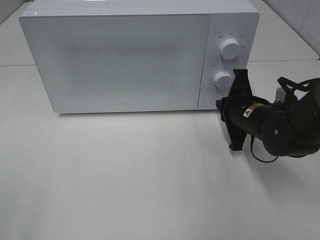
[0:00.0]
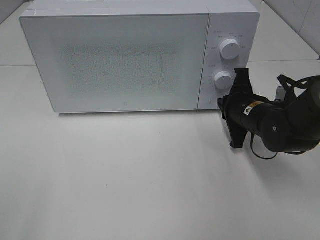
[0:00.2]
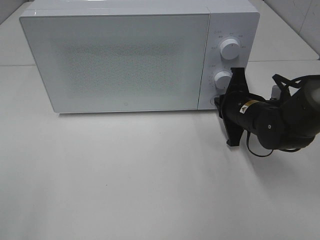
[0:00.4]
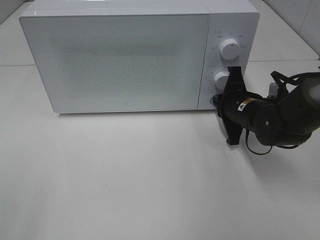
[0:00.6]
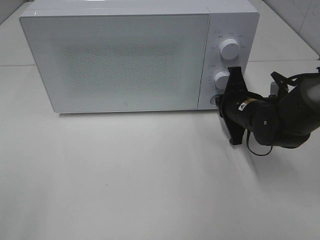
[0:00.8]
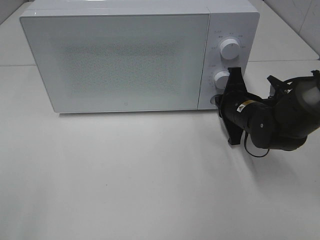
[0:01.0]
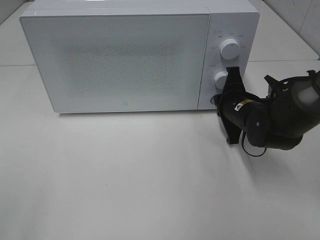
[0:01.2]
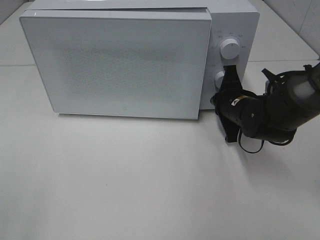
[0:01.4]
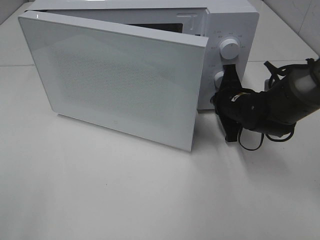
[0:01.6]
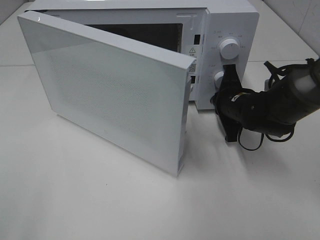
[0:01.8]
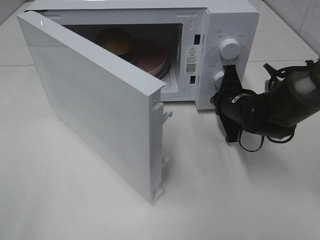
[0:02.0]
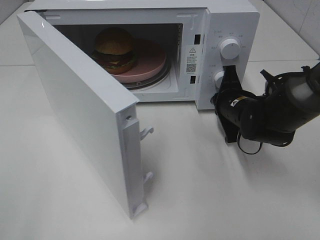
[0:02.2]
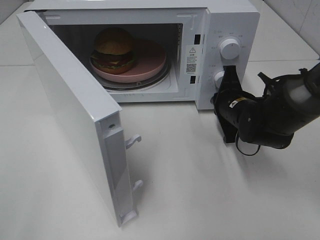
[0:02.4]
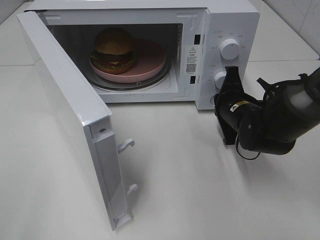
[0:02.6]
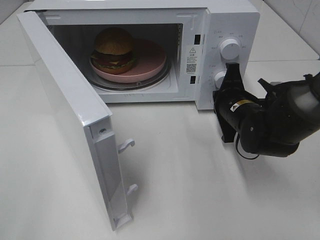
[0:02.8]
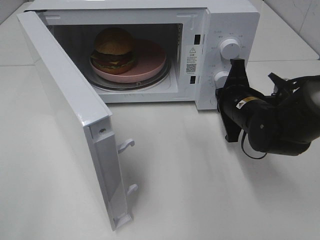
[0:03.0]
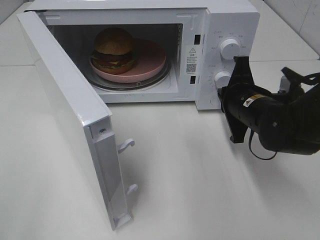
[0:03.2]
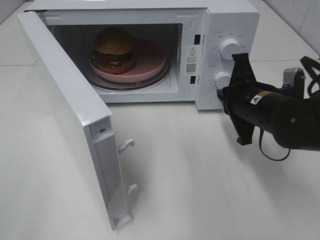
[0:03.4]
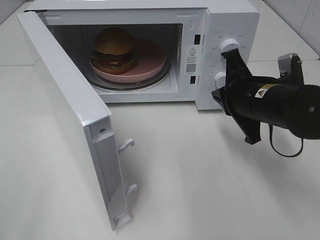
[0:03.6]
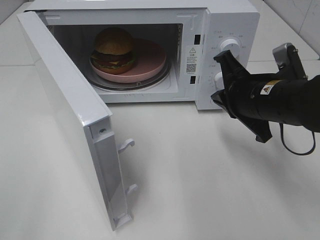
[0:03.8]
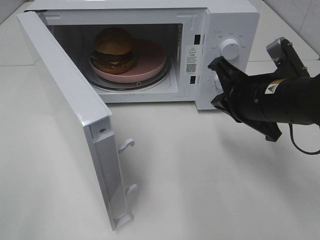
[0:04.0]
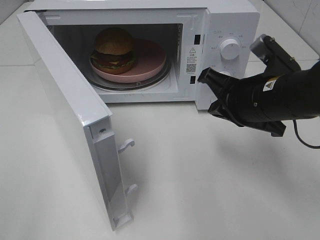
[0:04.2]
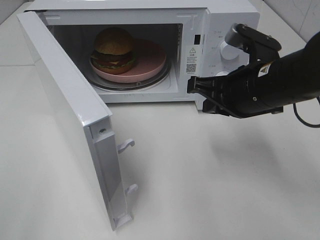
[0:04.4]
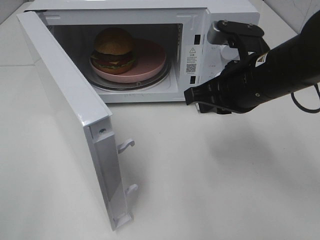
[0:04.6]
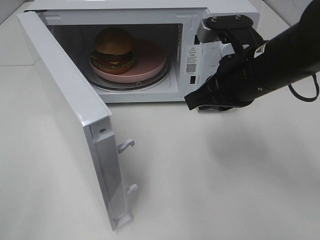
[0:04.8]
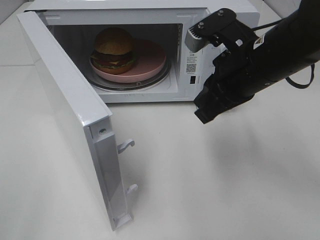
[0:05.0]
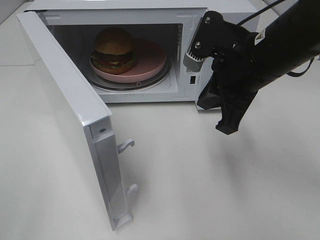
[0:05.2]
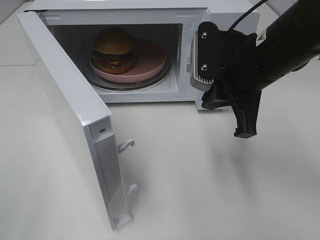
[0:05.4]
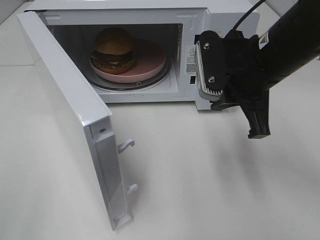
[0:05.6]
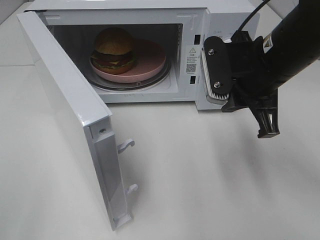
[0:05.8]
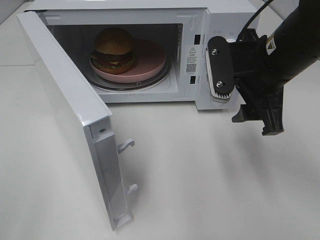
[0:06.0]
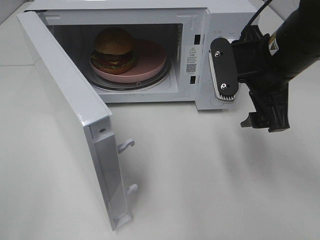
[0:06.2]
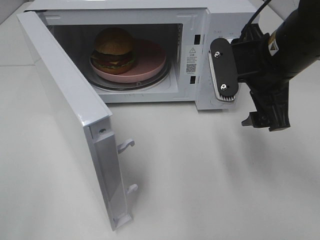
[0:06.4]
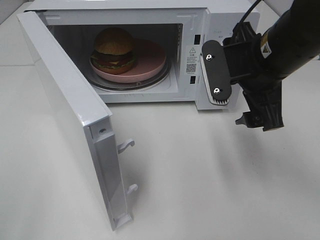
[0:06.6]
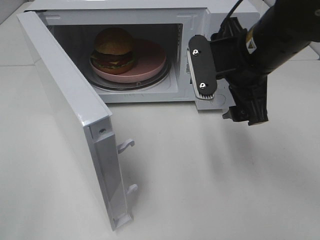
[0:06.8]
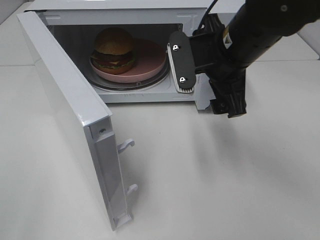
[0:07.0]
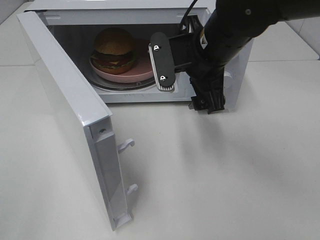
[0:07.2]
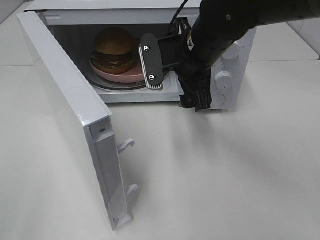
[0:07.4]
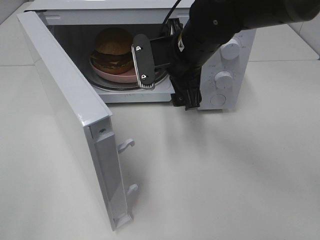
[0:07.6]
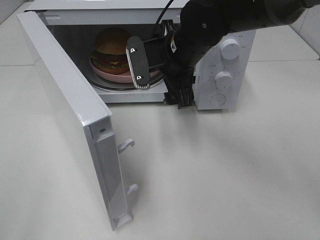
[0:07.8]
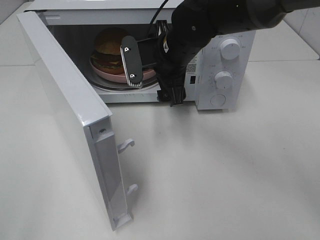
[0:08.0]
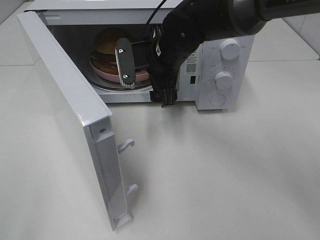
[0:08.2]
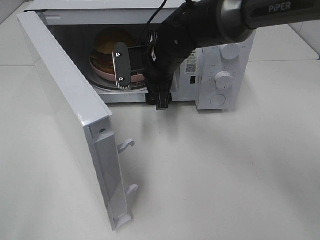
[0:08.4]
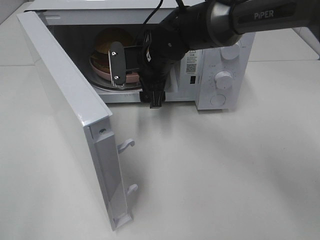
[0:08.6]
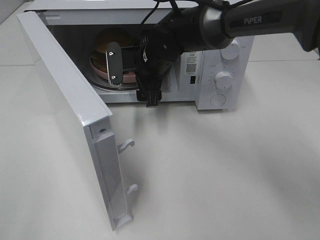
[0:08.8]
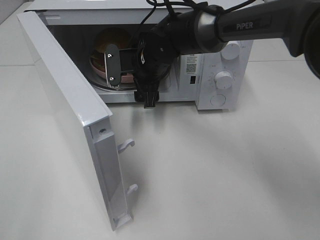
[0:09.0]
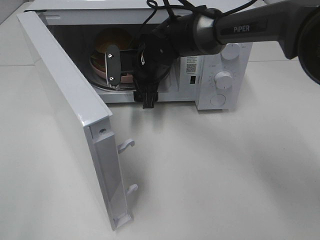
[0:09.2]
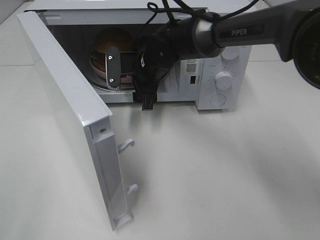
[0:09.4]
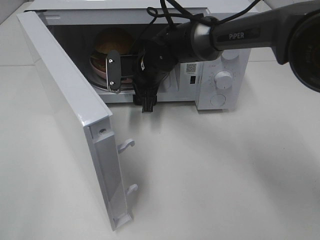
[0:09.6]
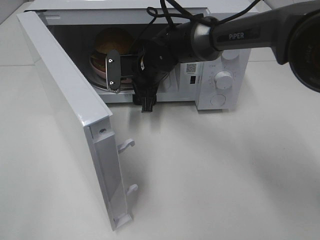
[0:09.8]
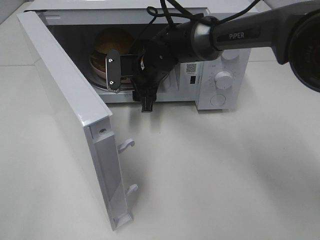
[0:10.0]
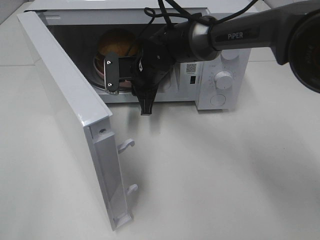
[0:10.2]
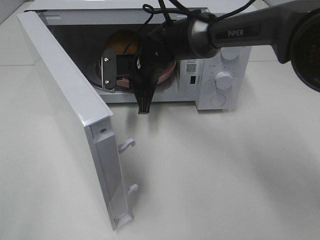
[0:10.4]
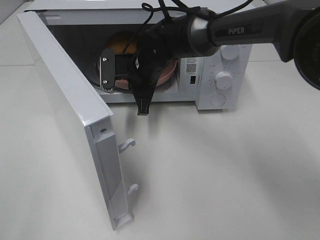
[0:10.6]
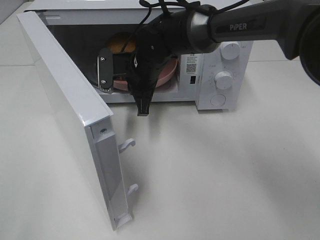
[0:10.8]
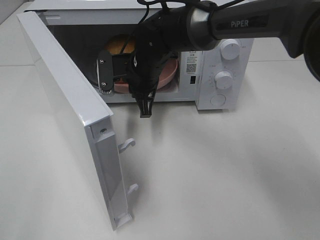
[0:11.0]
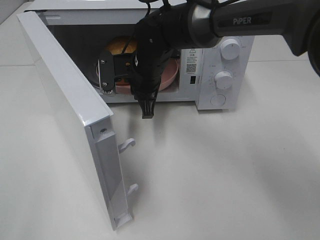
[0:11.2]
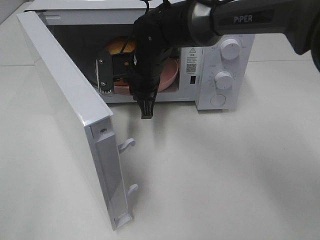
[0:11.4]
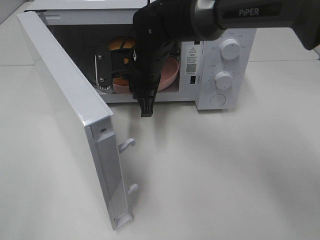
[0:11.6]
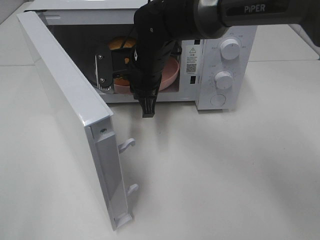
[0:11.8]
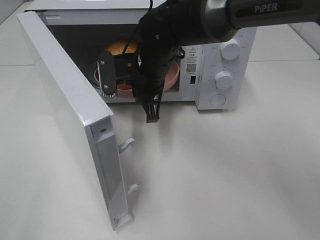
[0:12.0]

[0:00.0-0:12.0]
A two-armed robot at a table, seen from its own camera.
Task of the whole recording: Heat the burger.
Step, 0:00.0 to 0:02.8: Right hand: press the switch.
Step, 0:03.0 to 0:10.4: Right hand: grab the plate with the hamburger.
0:00.0 to 0:01.6: The grippers move only a little.
0:01.6 to 0:03.0: The right gripper shifts by some 5 cm.
0:03.0 to 0:04.4: The right gripper moves upward and backward, roughly 10 cm.
0:04.4 to 0:06.0: The right gripper opens its fingers.
0:06.0 to 0:07.6: The right gripper shifts approximately 10 cm to the left and forward.
0:07.6 to 0:09.0: The right gripper moves forward, downward and to the left, approximately 10 cm.
0:09.0 to 0:10.4: The right gripper closes up.
0:10.4 to 0:12.0: The right gripper ends up some 5 cm from where it was.

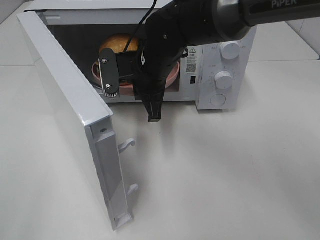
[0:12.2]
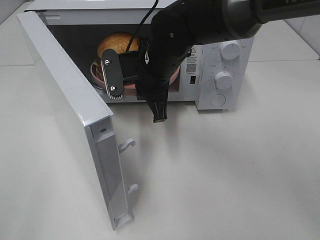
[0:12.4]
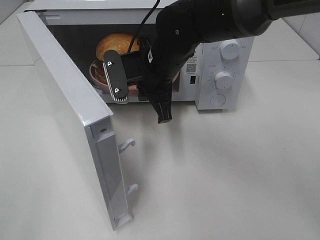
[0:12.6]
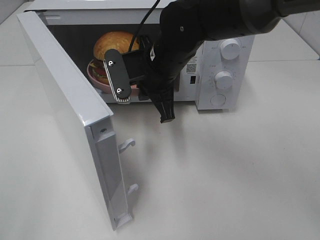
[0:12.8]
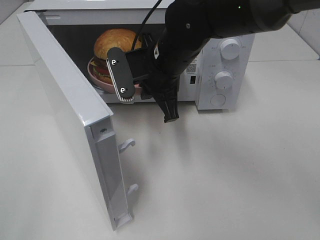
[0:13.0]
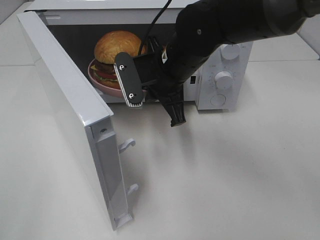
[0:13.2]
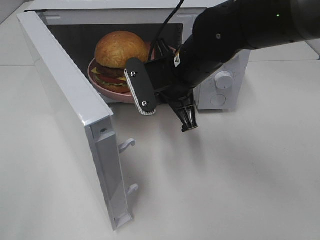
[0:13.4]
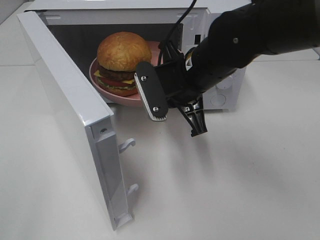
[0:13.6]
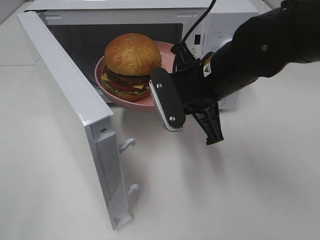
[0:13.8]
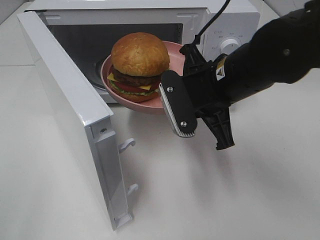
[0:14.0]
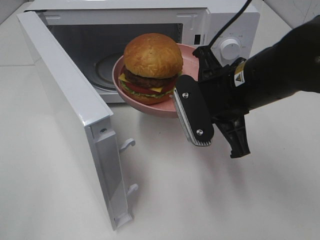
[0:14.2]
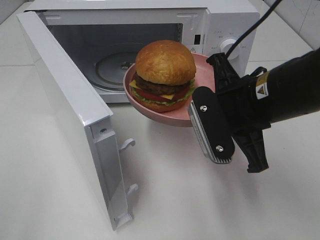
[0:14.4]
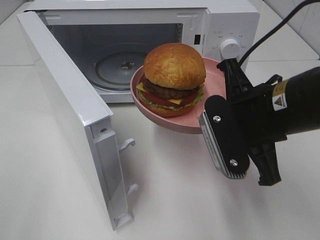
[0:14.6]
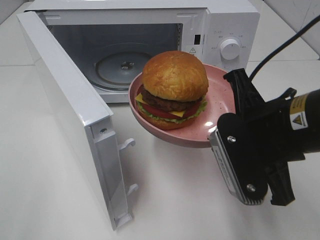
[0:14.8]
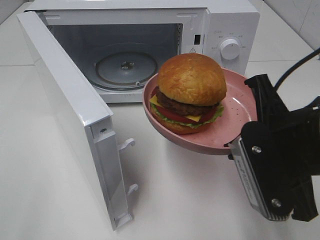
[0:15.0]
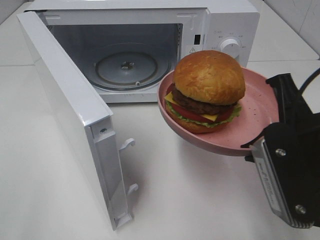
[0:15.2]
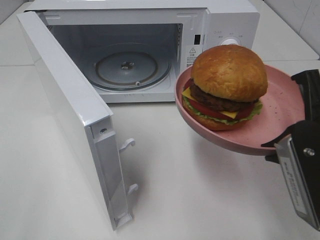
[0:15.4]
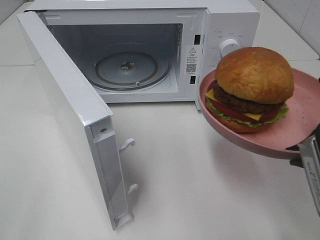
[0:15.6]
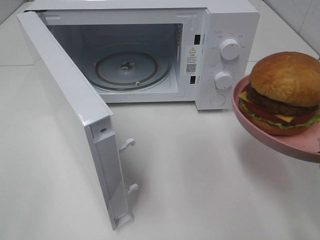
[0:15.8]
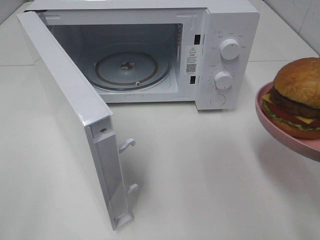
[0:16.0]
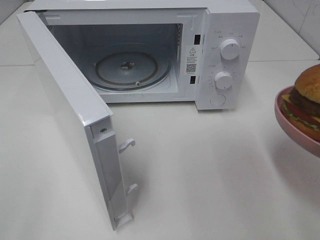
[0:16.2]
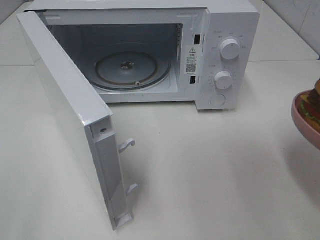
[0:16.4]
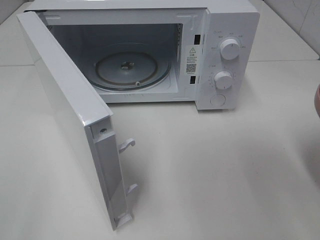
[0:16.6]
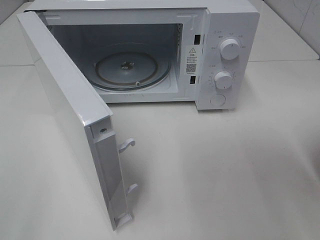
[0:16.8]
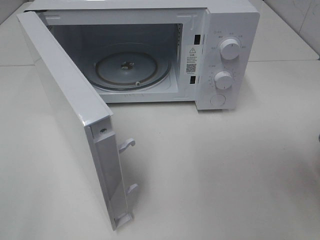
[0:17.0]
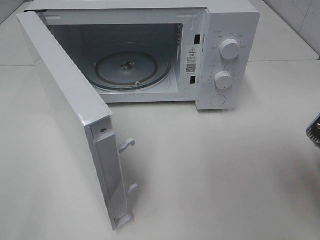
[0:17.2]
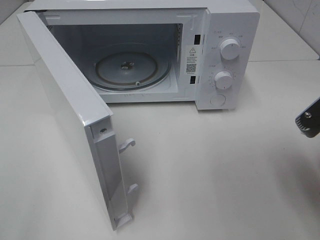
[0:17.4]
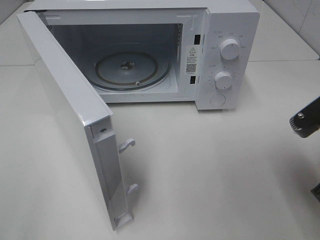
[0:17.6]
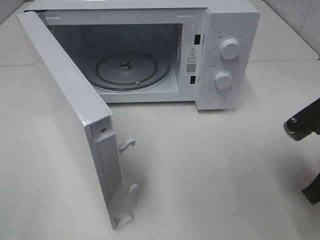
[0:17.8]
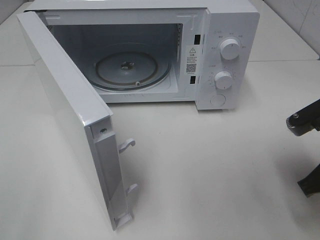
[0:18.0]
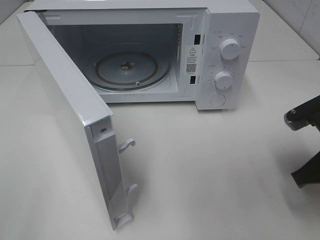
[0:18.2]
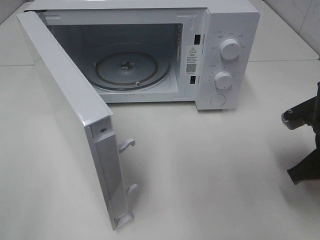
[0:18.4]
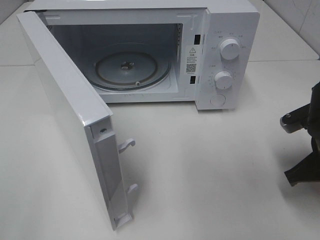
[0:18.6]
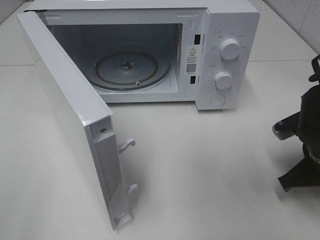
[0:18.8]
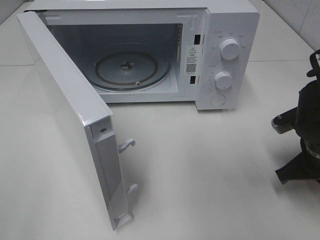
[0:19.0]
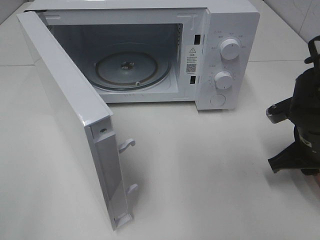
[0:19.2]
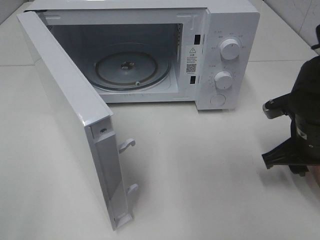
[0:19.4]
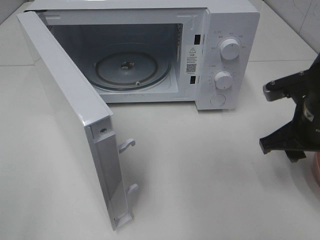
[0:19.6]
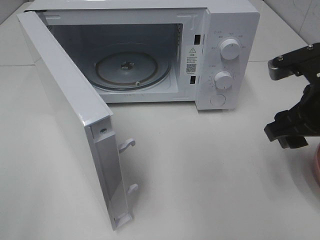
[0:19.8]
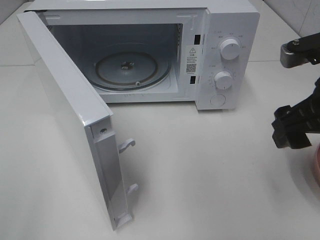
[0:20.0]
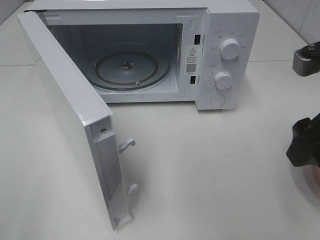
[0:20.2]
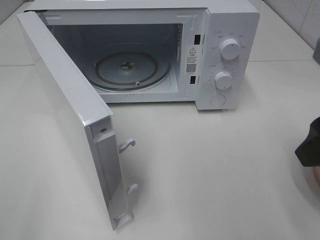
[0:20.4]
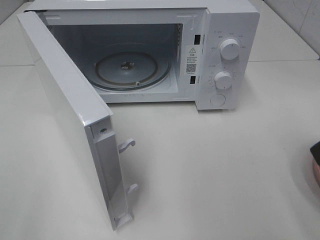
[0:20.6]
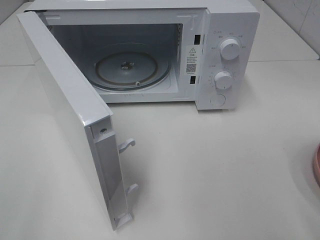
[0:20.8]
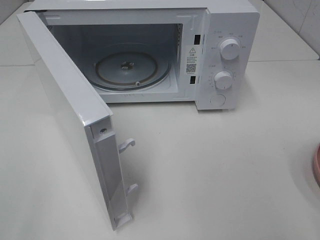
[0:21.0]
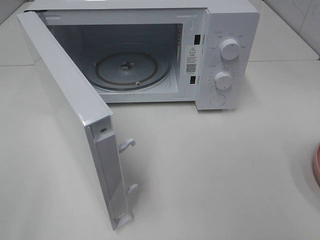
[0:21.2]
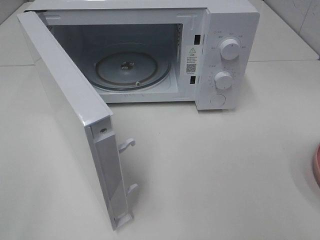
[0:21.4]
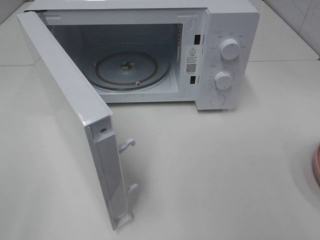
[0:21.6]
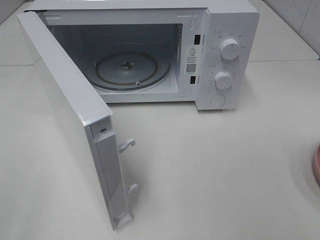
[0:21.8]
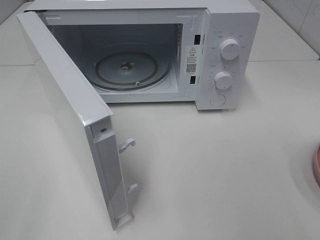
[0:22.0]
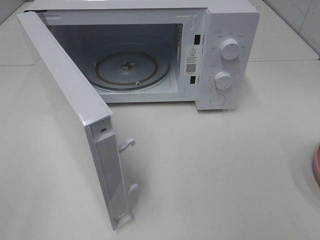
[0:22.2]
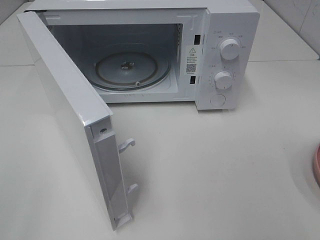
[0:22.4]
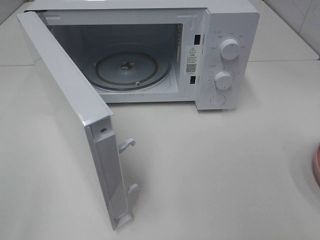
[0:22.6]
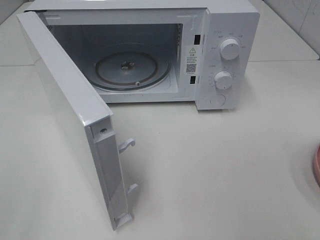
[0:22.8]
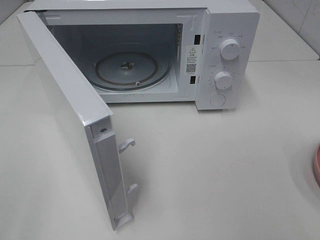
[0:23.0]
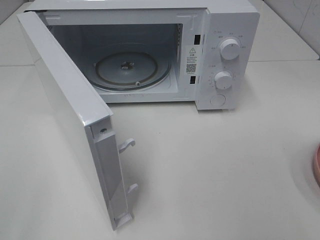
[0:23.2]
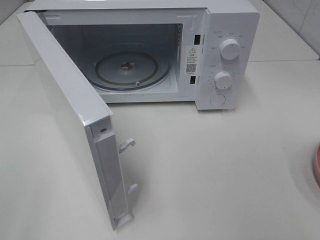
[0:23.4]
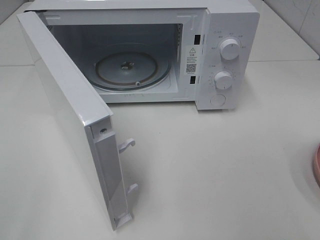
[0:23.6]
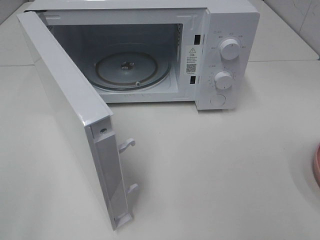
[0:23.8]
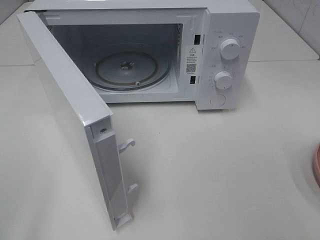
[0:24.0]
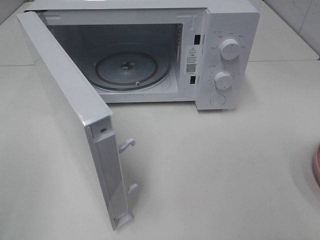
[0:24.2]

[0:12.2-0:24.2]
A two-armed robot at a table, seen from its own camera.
Task of the whole recording: Heat the burger.
Step, 0:12.2 to 0:19.0: Right hand: place the plate on the table.
0:12.2 to 0:13.8: The right gripper heads to the right and backward, covering roughly 10 cm.
0:13.8 to 0:15.2: The right gripper travels backward and to the right by some 15 cm.
0:15.2 to 0:16.6: The right gripper goes some 10 cm to the right.
0:16.6 to 0:18.2: The right gripper goes about 10 cm downward and forward.
0:18.2 to 0:19.8: The right gripper heads upward, covering roughly 5 cm, and opens its fingers.
0:19.8 to 0:21.2: The right gripper goes some 20 cm backward.
